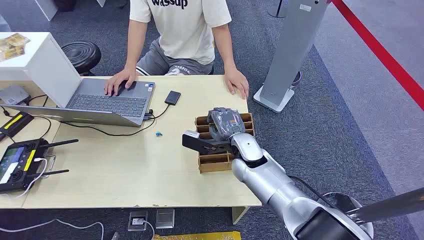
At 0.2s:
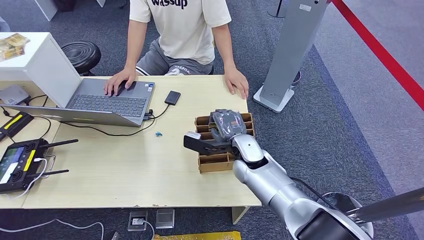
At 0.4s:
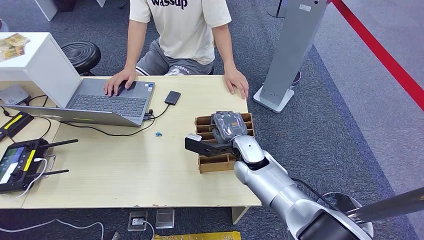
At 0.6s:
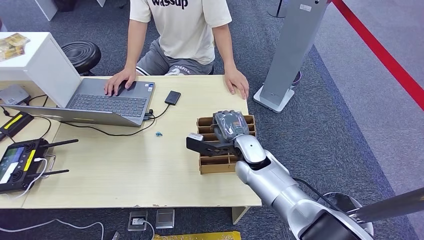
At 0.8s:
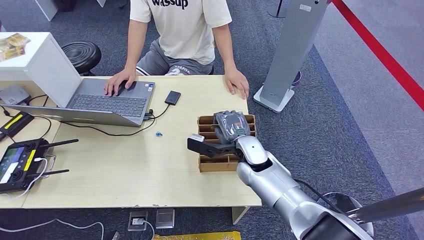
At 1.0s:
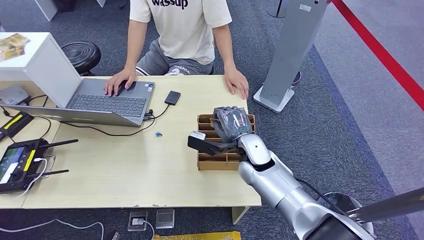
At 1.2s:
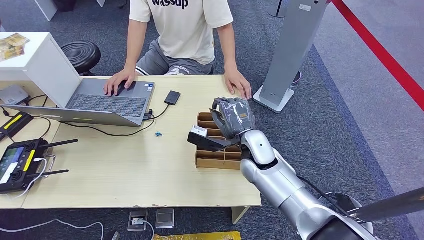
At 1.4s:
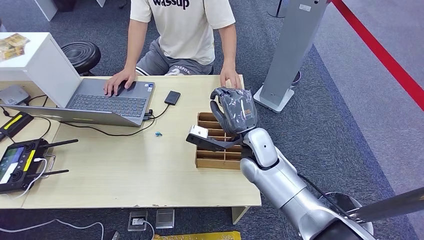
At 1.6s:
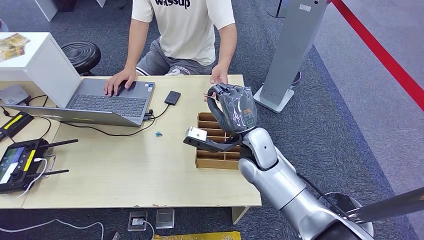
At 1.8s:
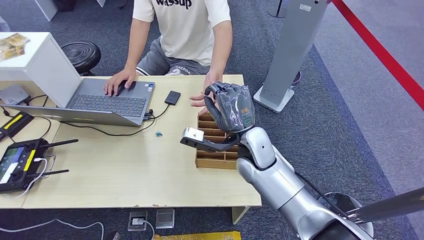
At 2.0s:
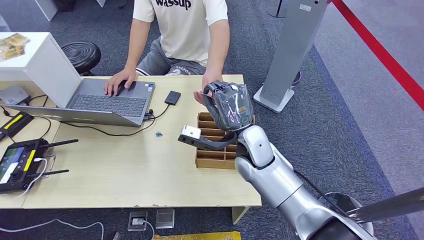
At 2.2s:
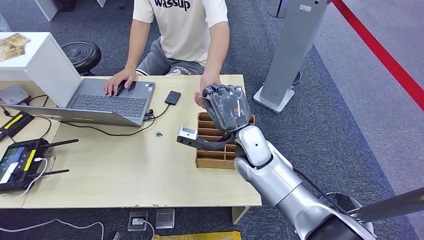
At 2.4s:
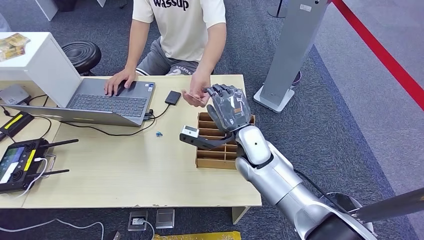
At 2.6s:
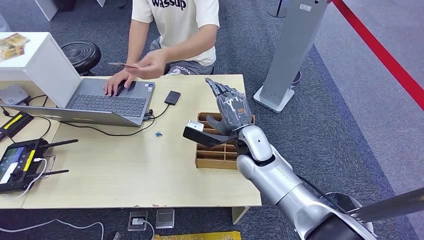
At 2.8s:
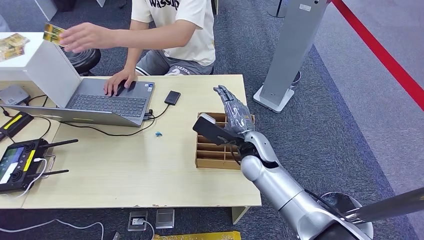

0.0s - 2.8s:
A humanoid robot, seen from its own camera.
Step, 0.0s - 1.4s: Pick up the room card from the card holder.
Step, 1.6s - 2.8s: Hand the room card to the target.
